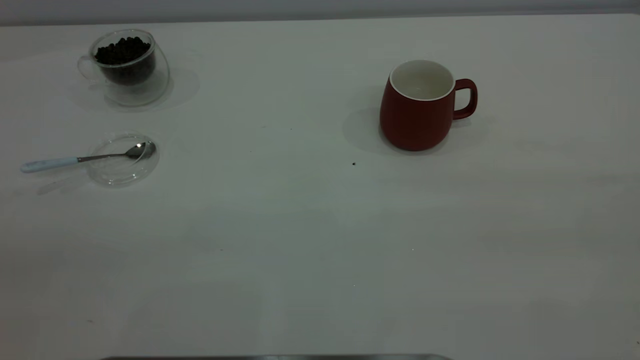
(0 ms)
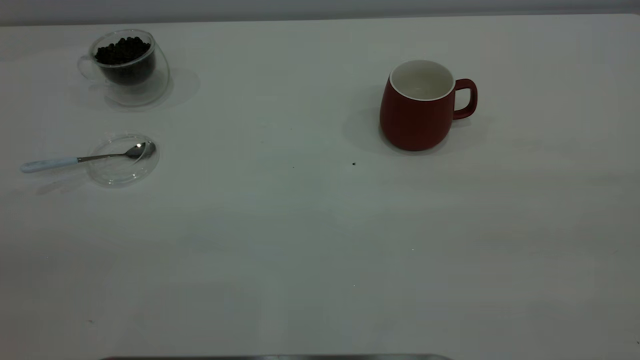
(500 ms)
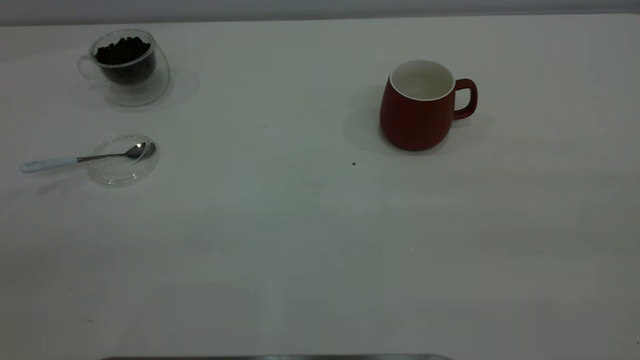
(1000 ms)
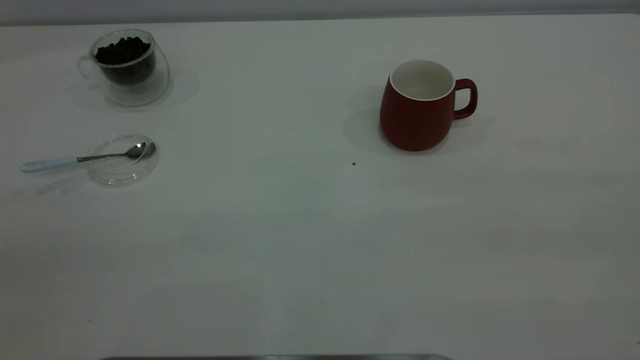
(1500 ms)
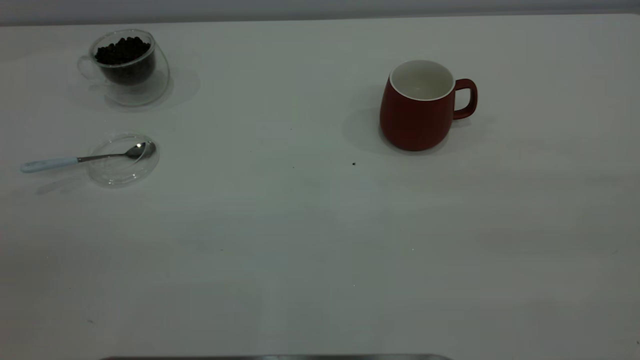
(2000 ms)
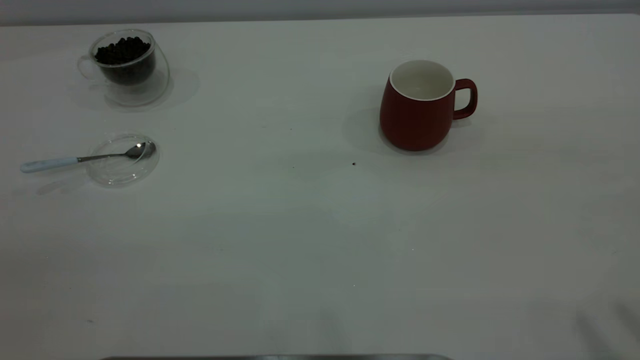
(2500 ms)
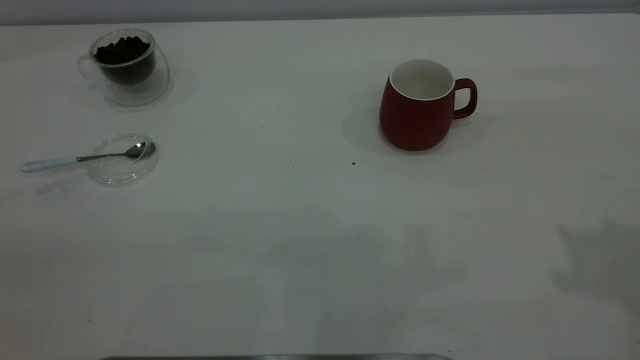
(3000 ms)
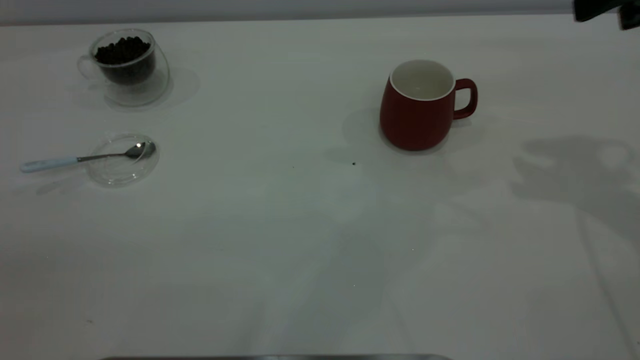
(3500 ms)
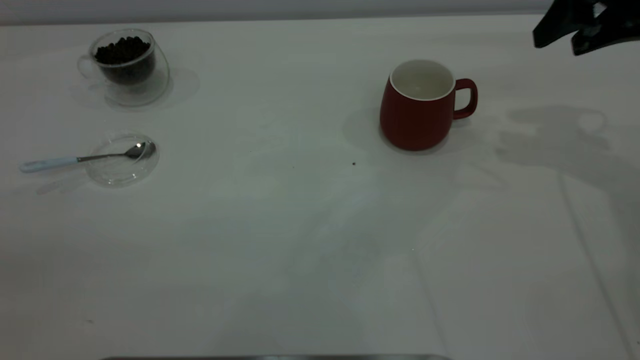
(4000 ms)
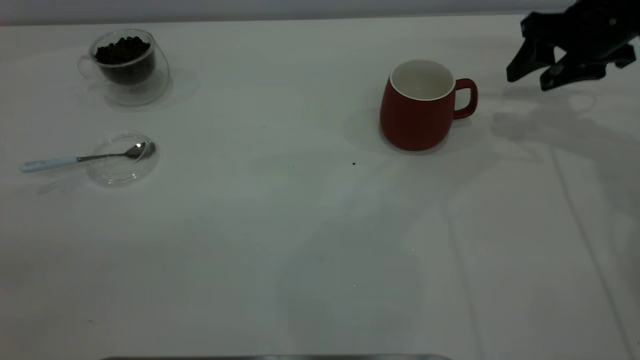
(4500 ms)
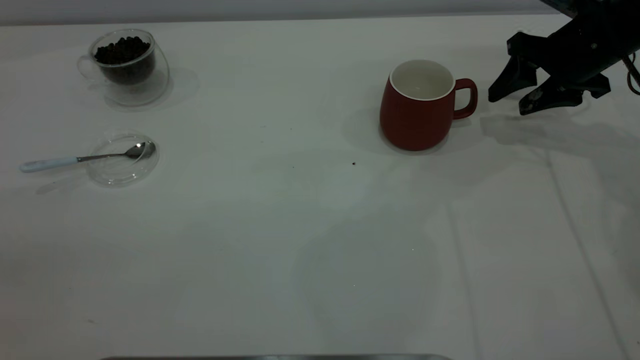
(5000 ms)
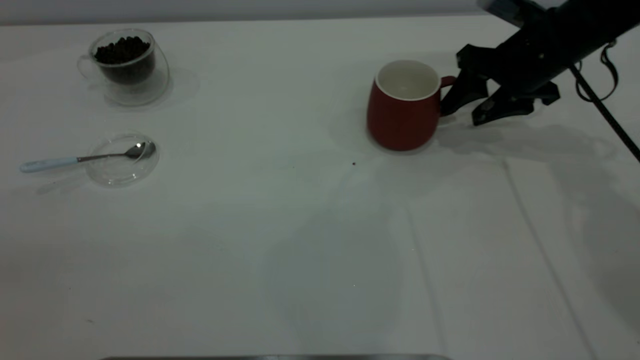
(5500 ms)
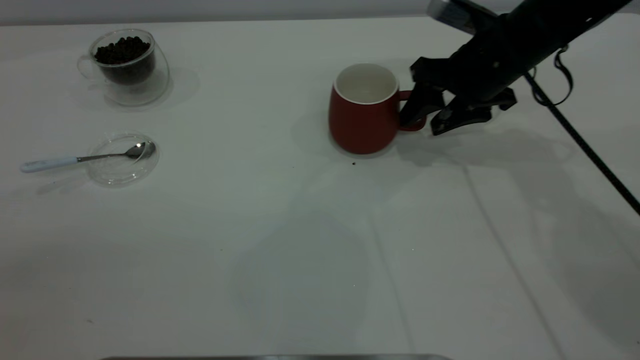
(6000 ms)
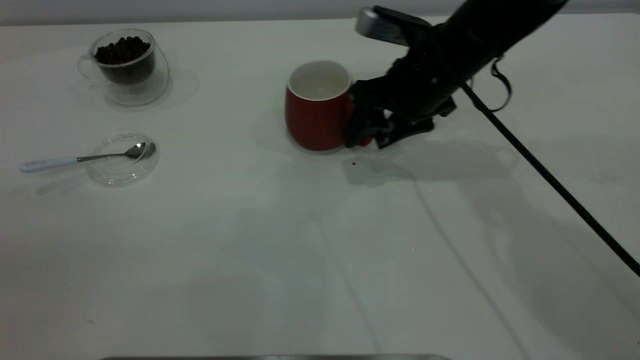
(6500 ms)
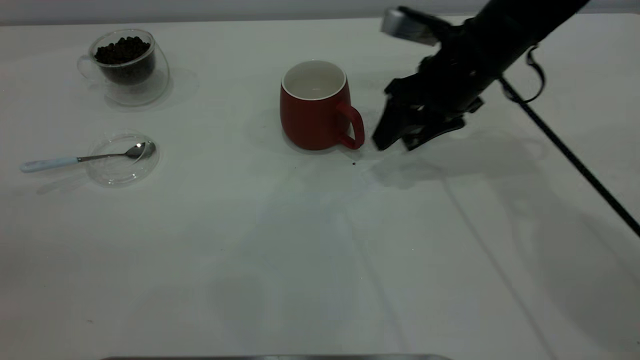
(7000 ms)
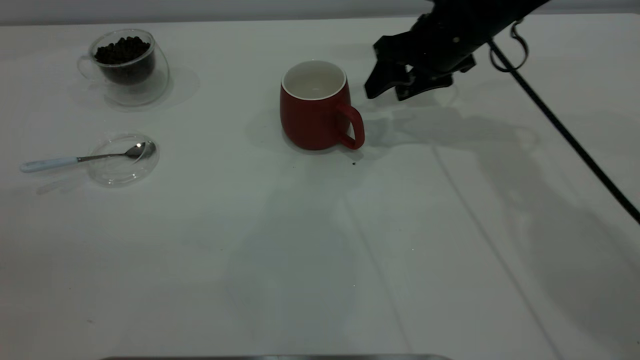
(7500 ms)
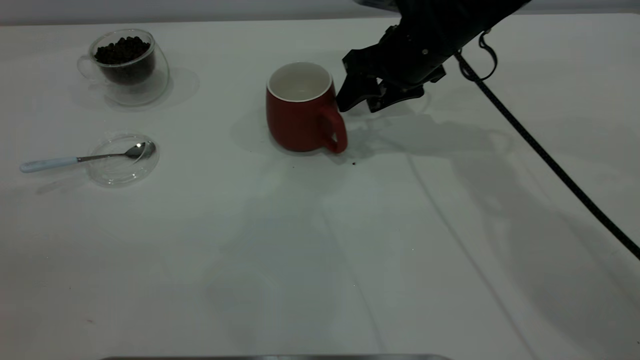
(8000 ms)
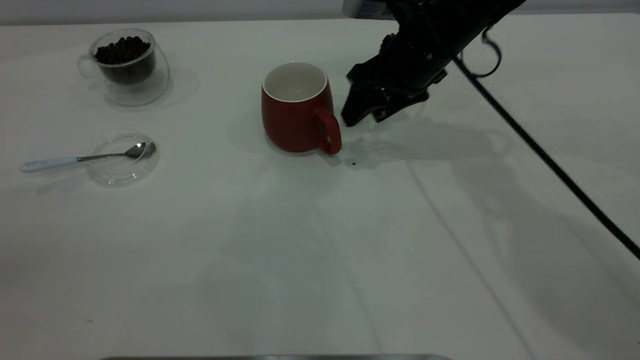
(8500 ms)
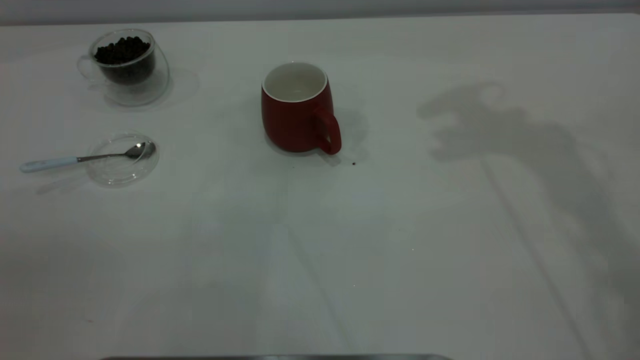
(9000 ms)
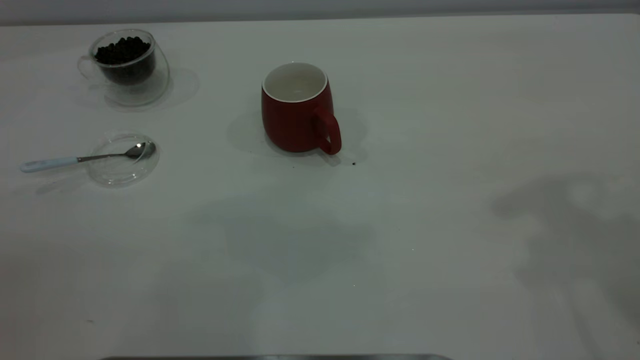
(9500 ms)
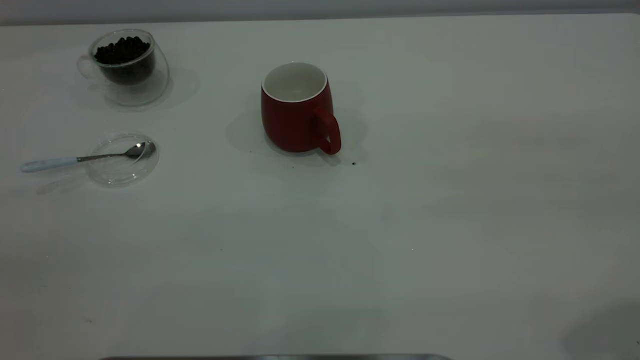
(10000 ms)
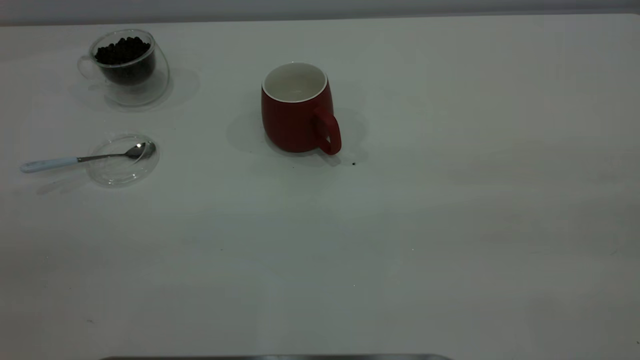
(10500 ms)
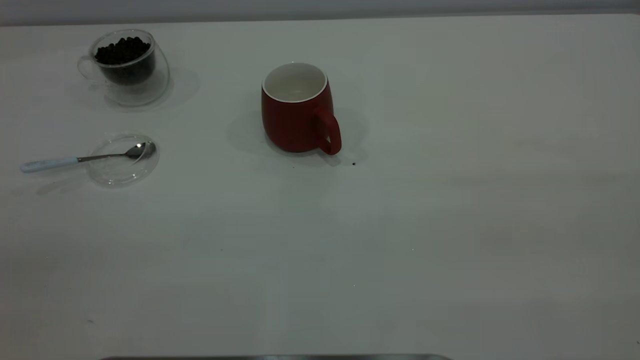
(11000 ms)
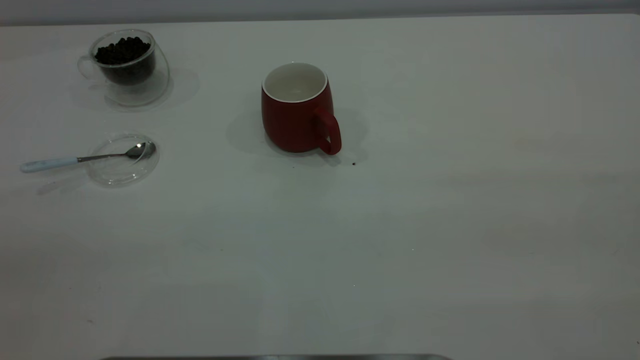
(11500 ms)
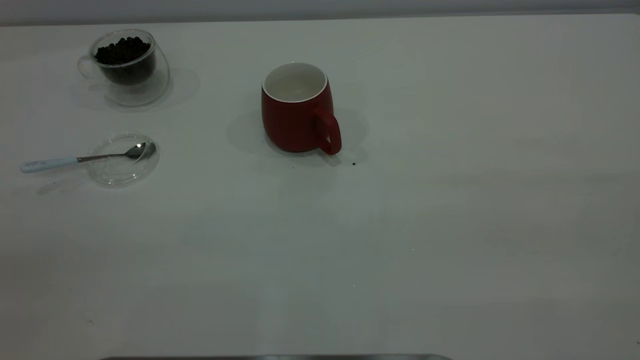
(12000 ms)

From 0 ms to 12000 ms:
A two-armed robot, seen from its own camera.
Task of the whole recording: the right gripper place the red cup in the center of the table, the left gripper take the blue spoon from the cup lid and scoop out the coffee beans from the coffee cup and put them into the red cup, the left gripper put the spoon back into the cup lid.
Step, from 0 ms to 8000 ms: Move the cup to the center of view.
From 0 ms to 2000 ms: Neither gripper changes place.
From 2000 ms to 4000 ms: The right gripper is displaced forward by approximately 40 cm, and opens up.
From 4000 ms to 6000 ms: The right gripper heads to the left and downward, covering approximately 15 cm.
From 6000 ms to 8000 ms: The right gripper goes left and right, roughly 5 cm each way, reversing 2 times.
From 8000 ms to 10000 ms: The right gripper shifts about 40 cm backward, upward and to the right, and closes up.

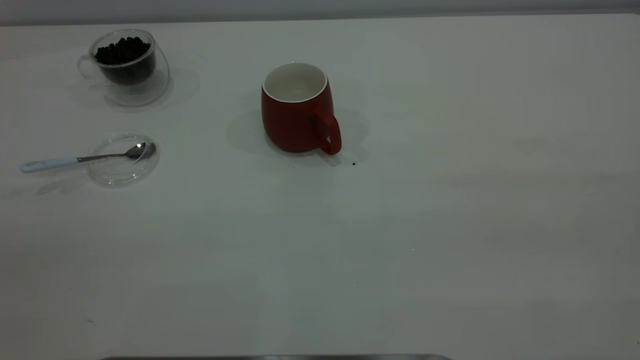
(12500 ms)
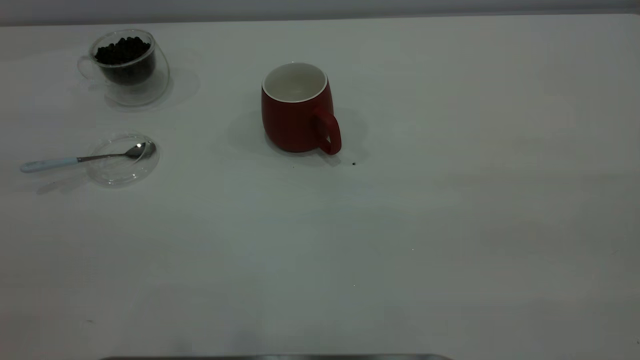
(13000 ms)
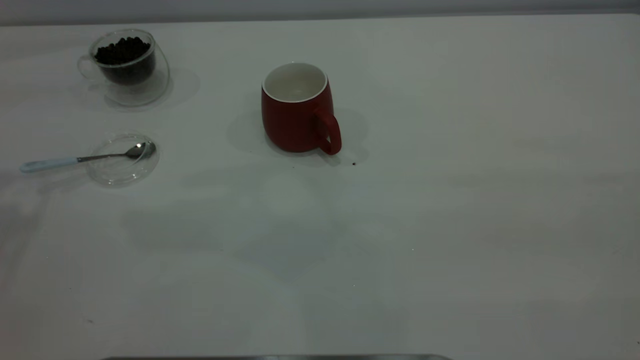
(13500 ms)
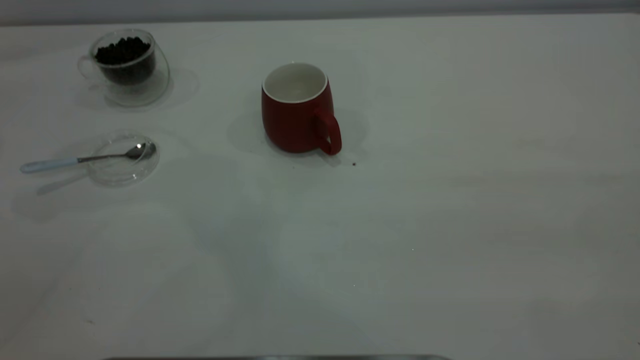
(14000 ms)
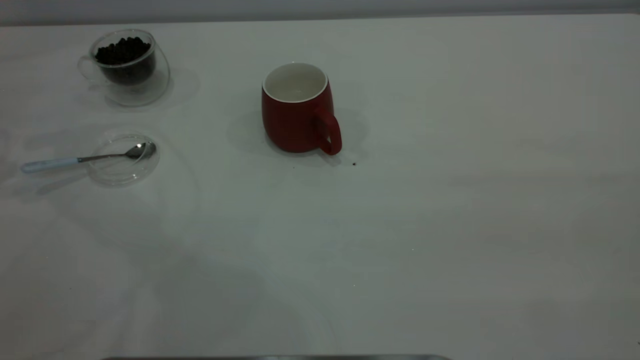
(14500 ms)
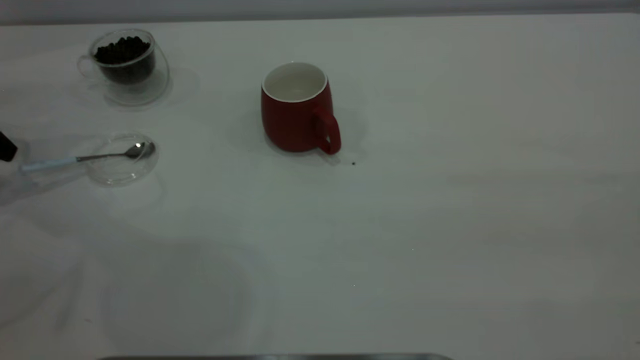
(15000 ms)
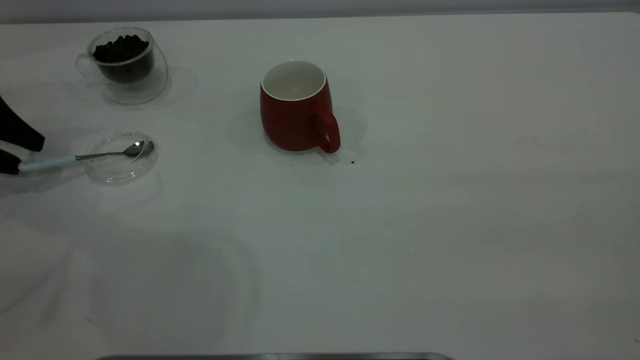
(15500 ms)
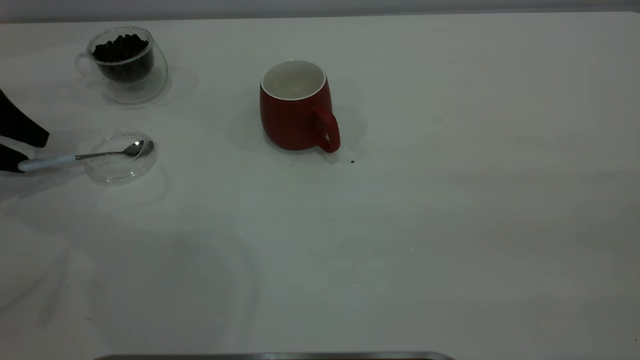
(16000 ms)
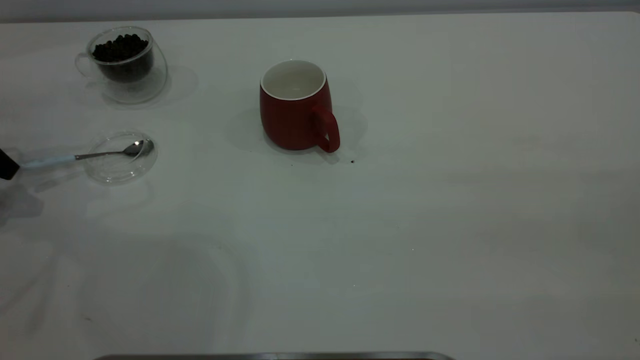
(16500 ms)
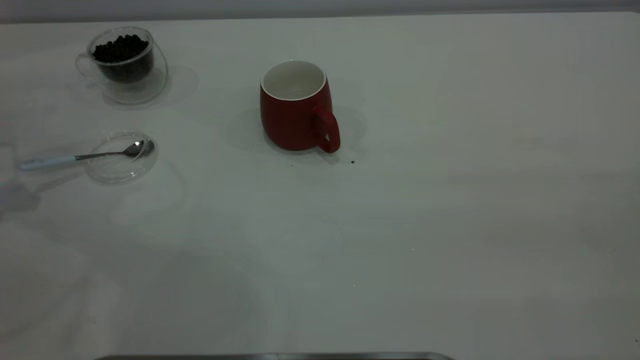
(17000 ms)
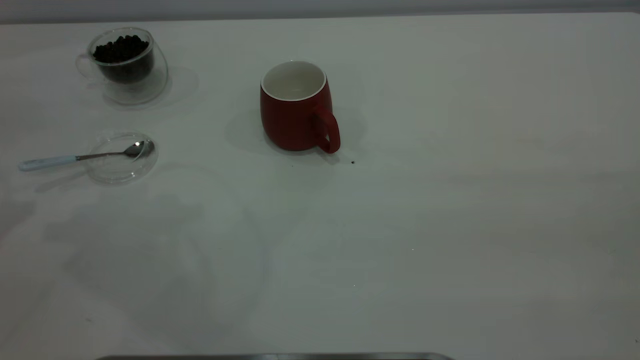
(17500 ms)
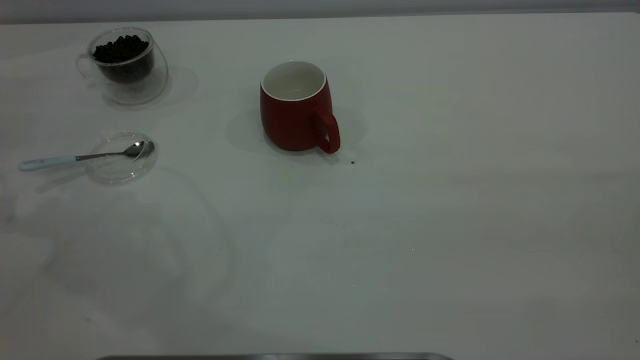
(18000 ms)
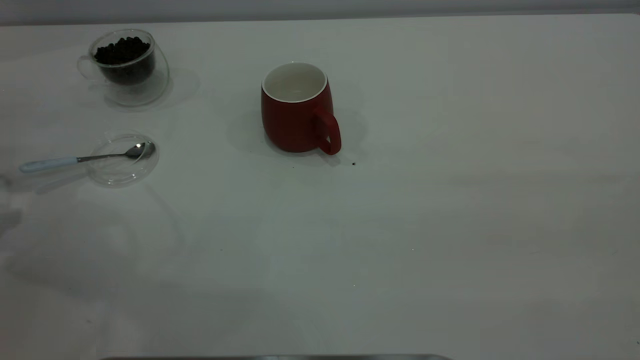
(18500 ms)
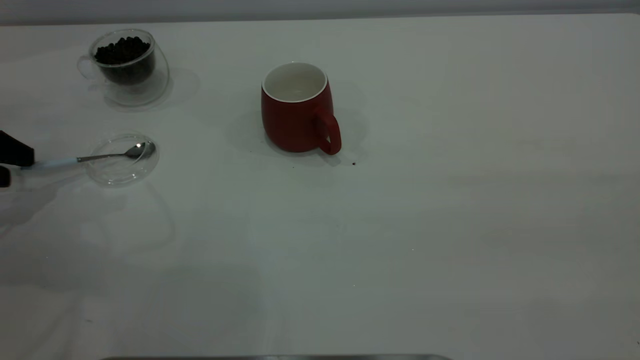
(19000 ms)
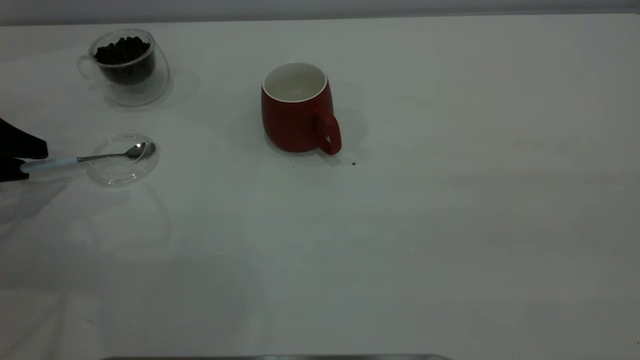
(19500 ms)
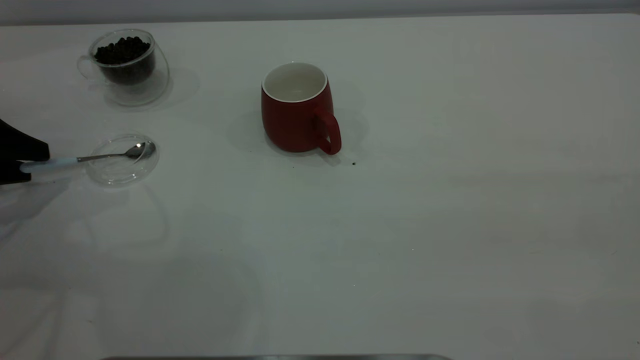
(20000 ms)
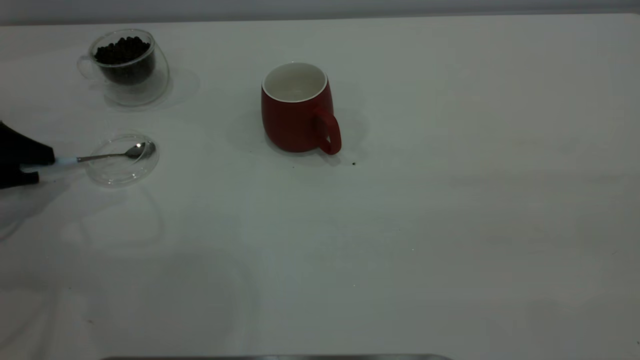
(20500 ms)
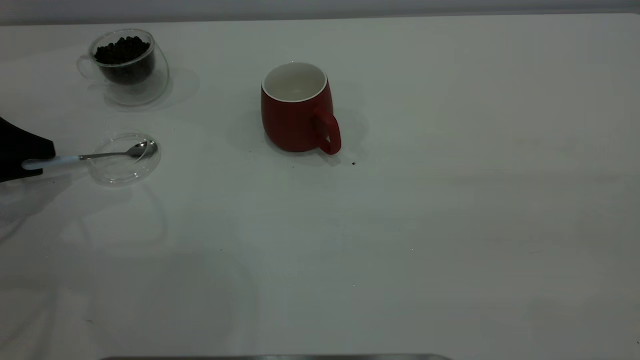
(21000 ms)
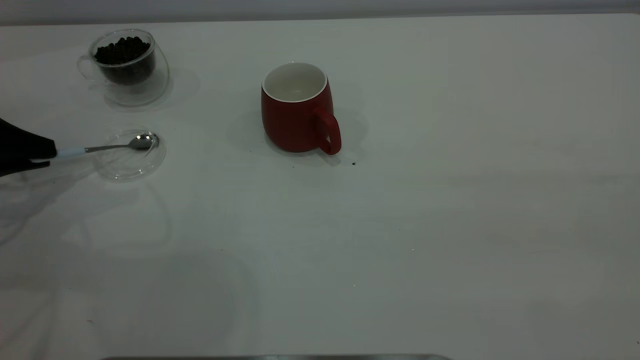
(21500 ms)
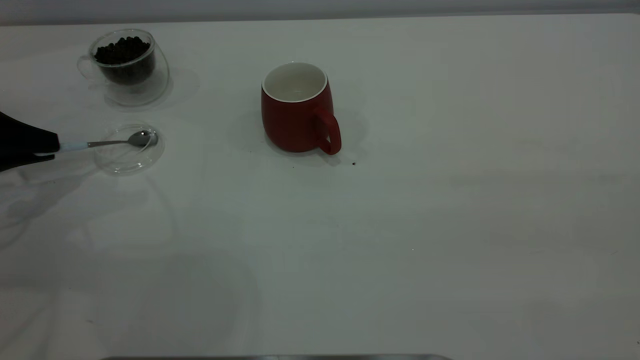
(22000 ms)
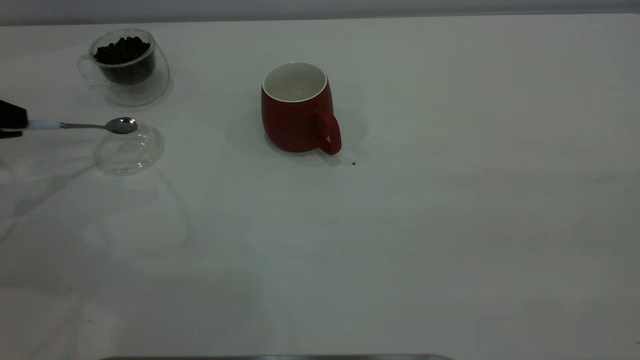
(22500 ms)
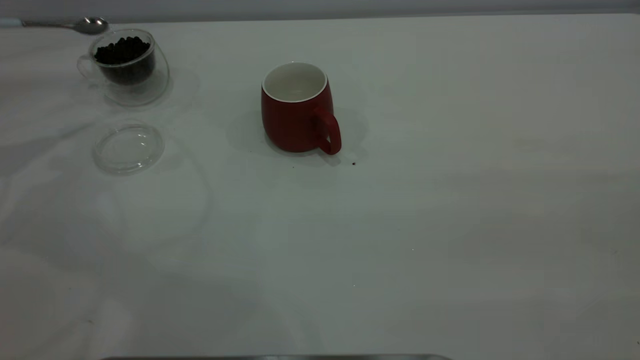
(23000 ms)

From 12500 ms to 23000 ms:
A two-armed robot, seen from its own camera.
Task of the whole recording: the right gripper place the red cup in the center of the table, the left gripper take the blue spoon from the cup lid and scoop out the coffee beans from the coffee cup and put them into the red cup, the left gripper put the spoon back into the cup lid.
Step, from 12500 ms to 22500 ms: Pick up the spoon.
From 14500 ms to 16500 ms: The left gripper is displaced downward by about 10 cm.
From 16500 ms to 19000 ms: The left gripper reaches roughly 15 cm upward, then returns.
From 21000 ms to 23000 ms: The left gripper shifts about 15 cm upward and forward, and closes up.
